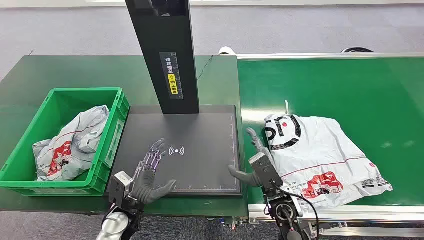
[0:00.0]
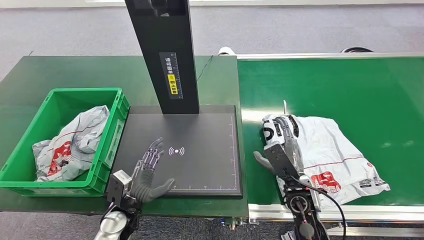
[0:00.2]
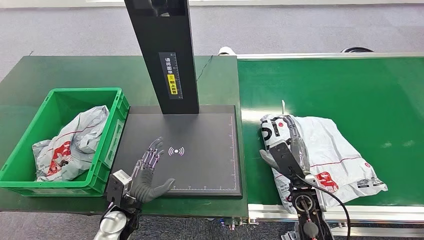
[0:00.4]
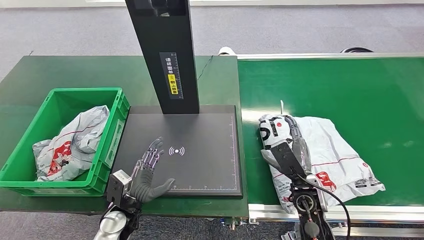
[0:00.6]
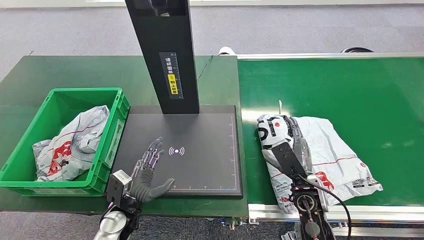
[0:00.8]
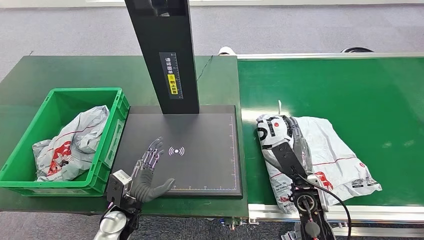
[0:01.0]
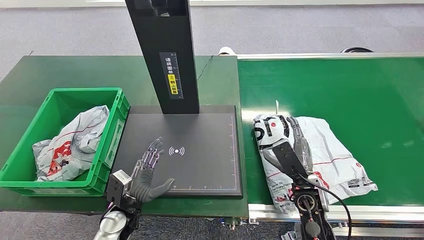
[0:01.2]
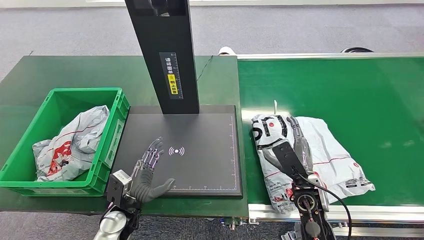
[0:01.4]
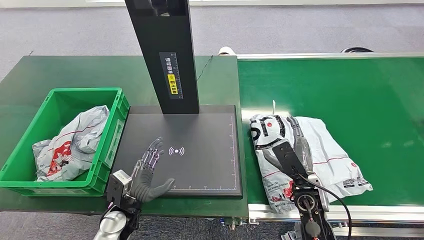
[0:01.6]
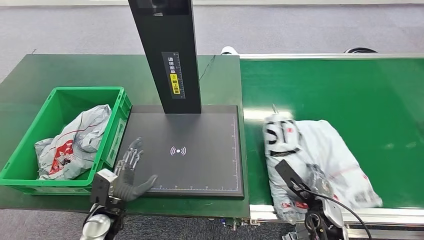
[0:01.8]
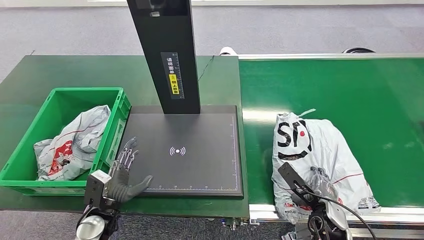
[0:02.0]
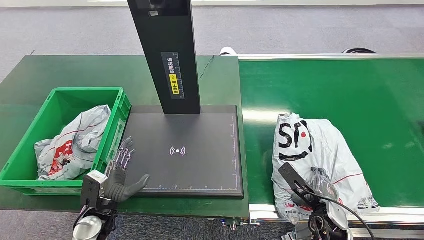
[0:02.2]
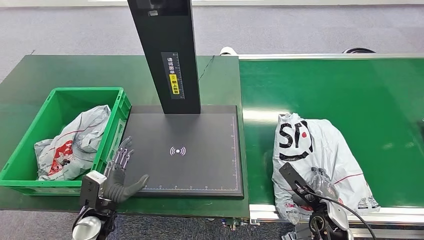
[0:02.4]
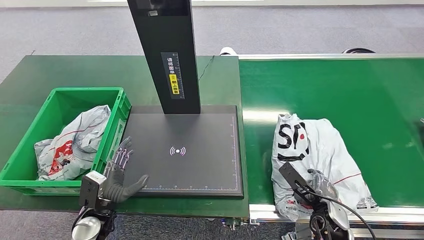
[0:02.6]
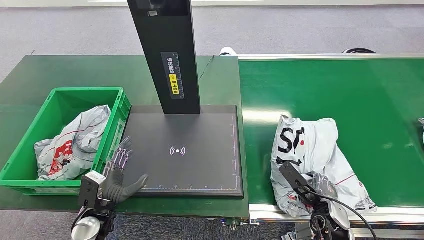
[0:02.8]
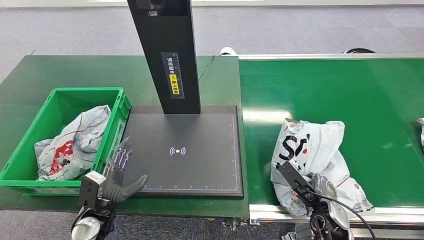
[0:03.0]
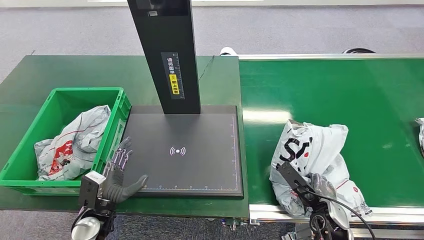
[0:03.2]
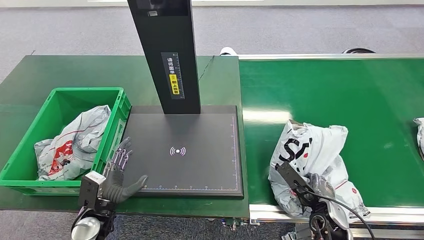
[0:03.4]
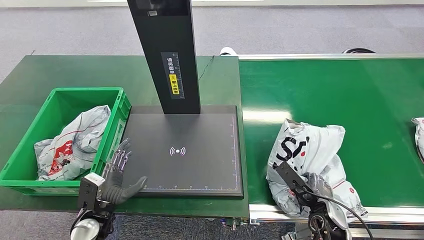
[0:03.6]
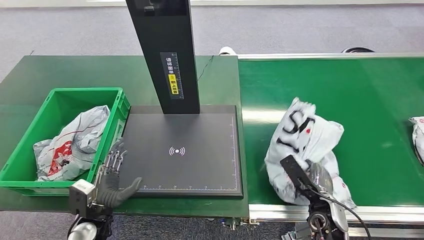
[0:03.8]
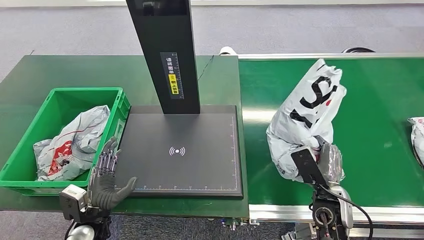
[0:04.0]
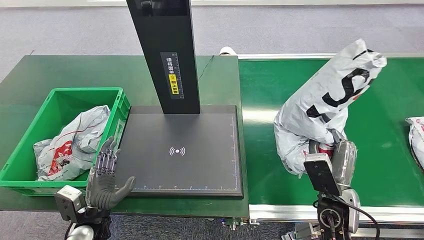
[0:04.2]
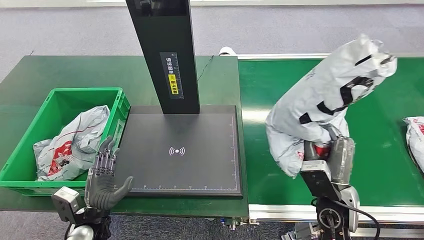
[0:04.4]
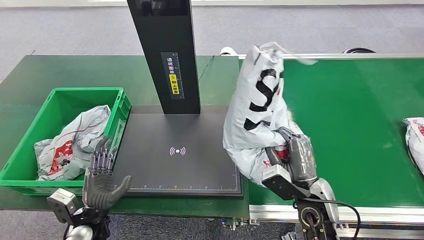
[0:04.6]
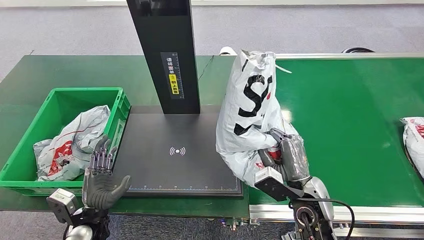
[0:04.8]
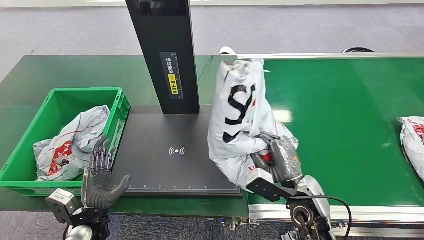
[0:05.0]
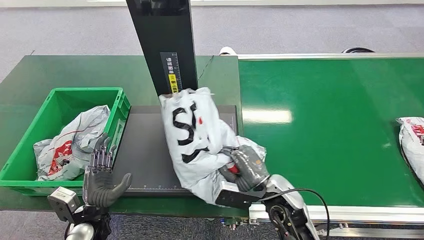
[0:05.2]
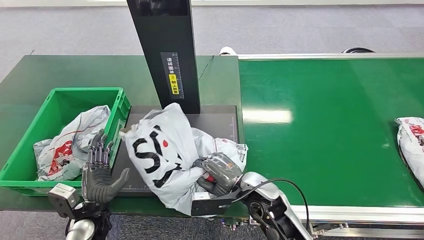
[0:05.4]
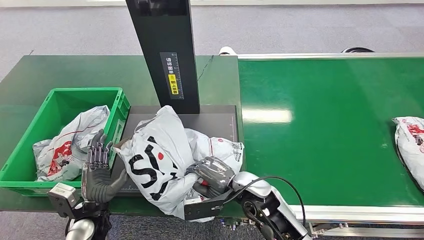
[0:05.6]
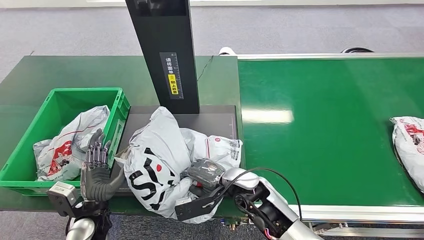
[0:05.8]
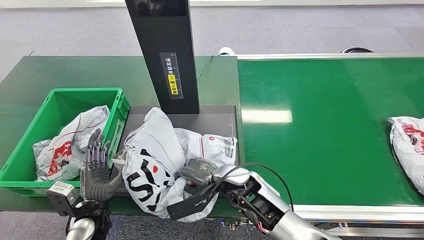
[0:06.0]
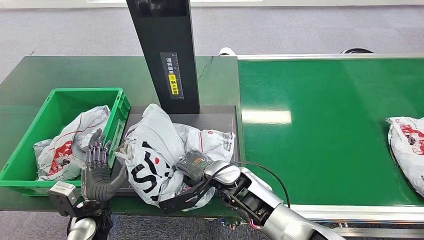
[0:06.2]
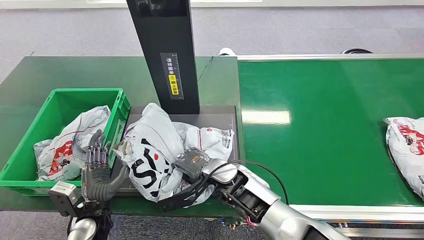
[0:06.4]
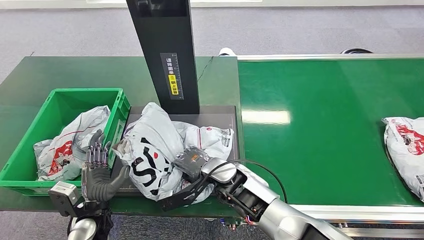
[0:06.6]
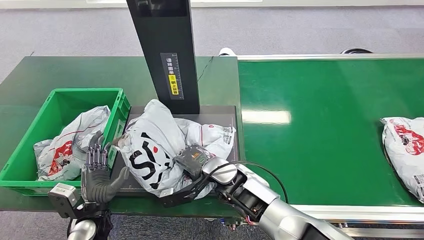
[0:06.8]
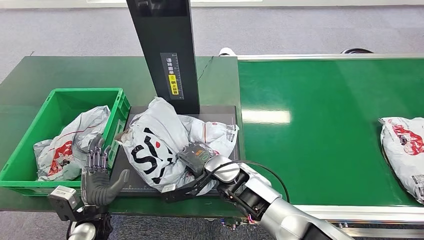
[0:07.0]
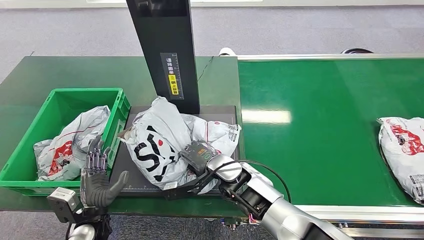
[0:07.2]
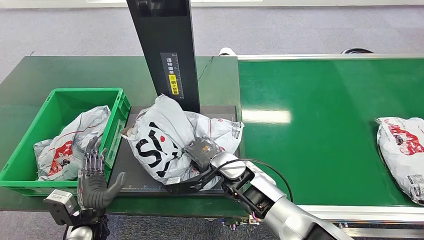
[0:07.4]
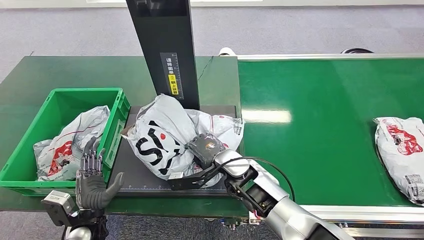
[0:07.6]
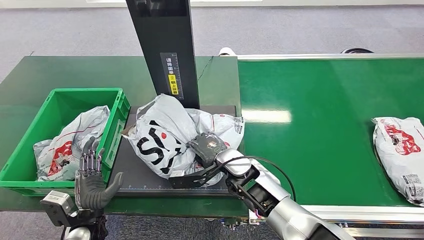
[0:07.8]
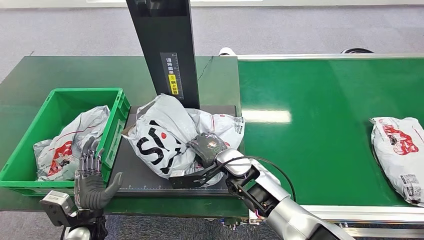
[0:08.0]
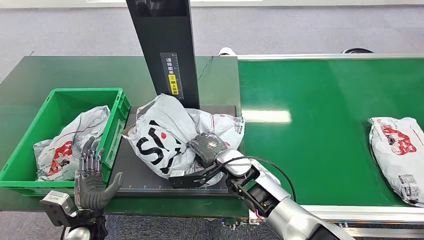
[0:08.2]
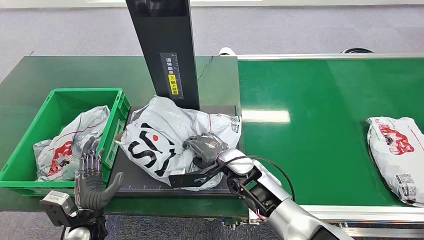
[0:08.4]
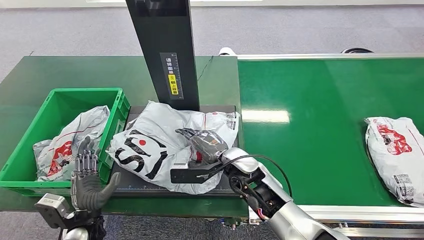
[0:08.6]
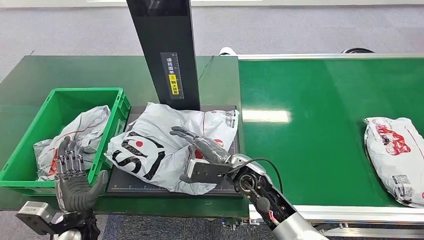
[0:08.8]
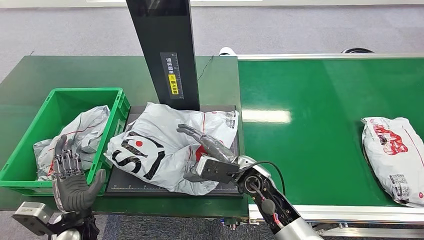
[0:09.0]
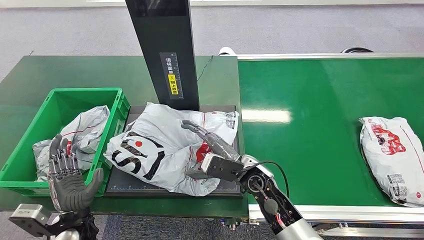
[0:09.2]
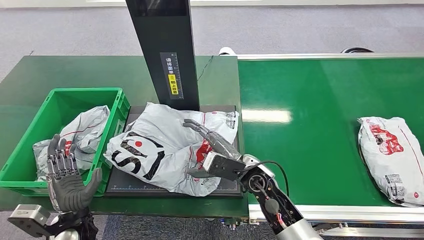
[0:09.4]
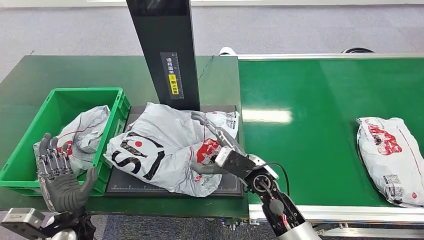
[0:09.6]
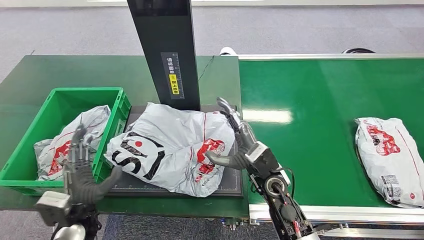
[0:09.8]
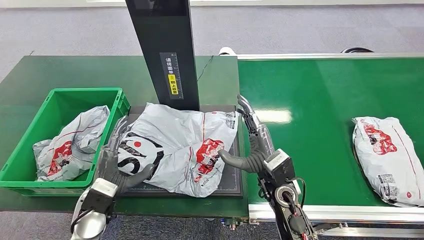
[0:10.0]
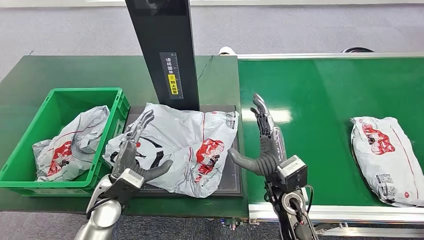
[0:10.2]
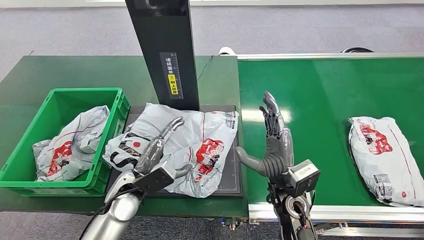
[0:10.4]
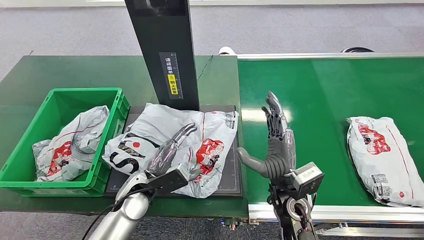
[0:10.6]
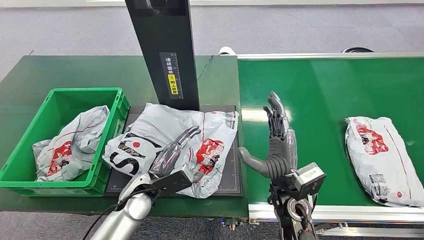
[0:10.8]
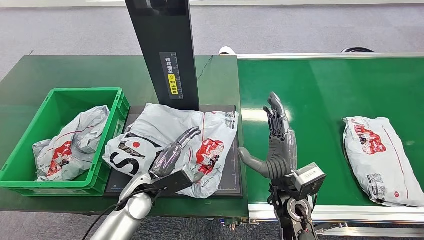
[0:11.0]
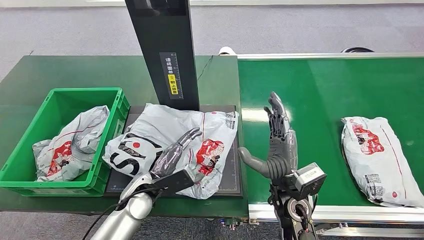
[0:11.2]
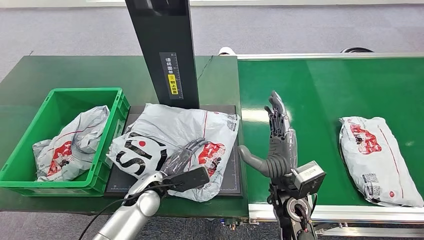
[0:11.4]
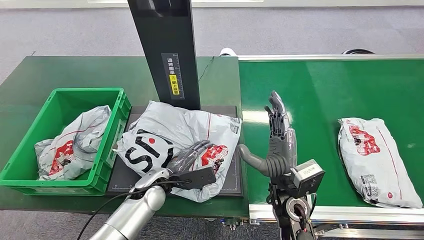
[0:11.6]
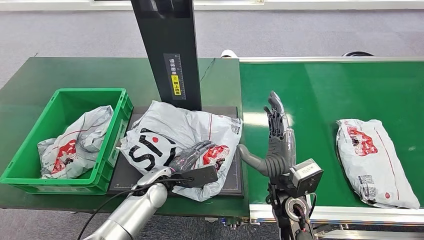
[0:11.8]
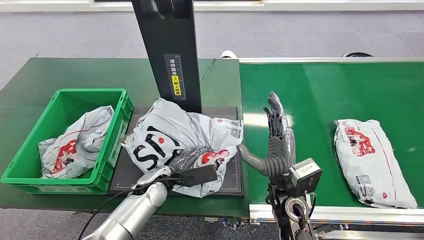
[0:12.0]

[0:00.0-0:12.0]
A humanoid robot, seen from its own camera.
Step, 0:00.0 to 0:03.8: Pick up the package from the conveyor belt.
Step, 0:04.0 to 0:09.4: Place the package onto the inbound machine.
0:01.6 to 0:03.0: The right hand moves to the right, roughly 5 cm. Meanwhile the left hand is displaced to the left by roughly 5 cm.

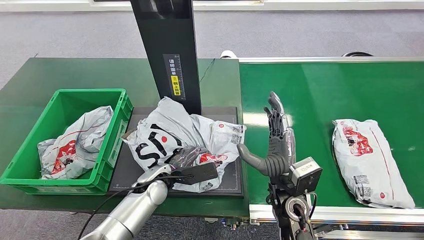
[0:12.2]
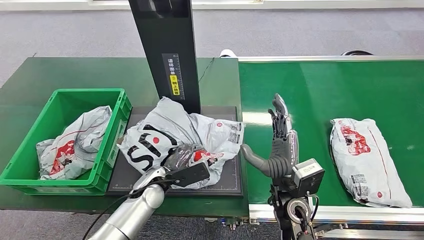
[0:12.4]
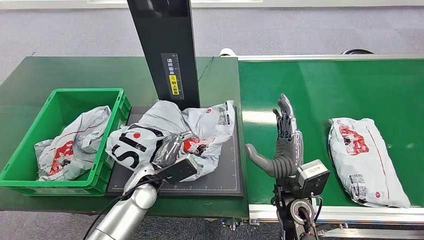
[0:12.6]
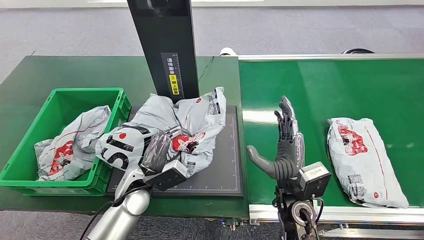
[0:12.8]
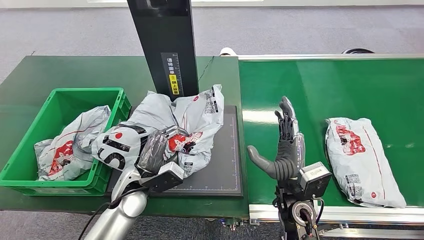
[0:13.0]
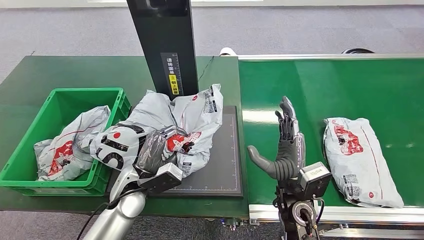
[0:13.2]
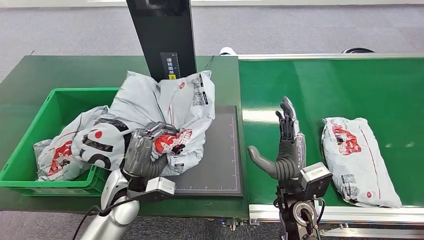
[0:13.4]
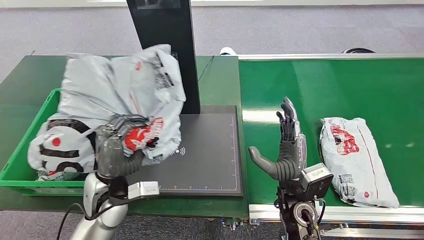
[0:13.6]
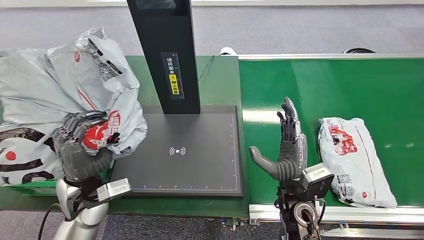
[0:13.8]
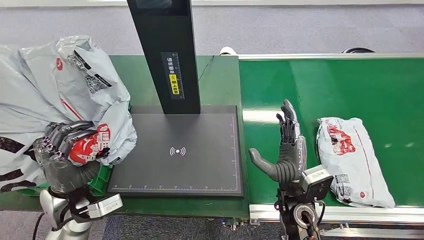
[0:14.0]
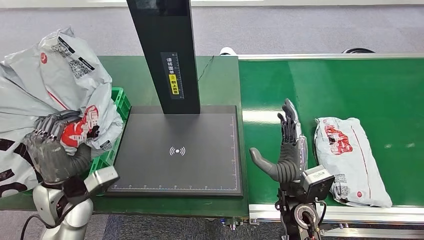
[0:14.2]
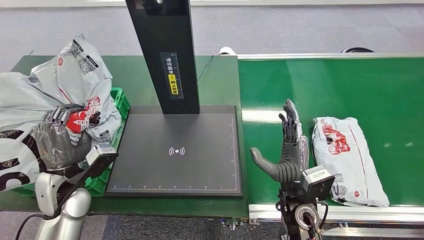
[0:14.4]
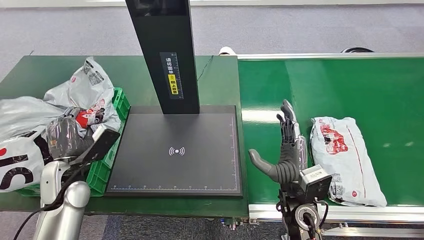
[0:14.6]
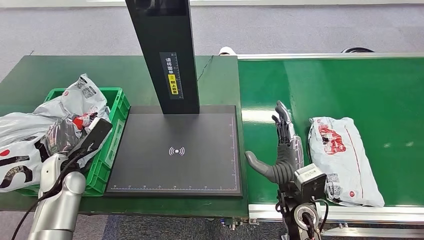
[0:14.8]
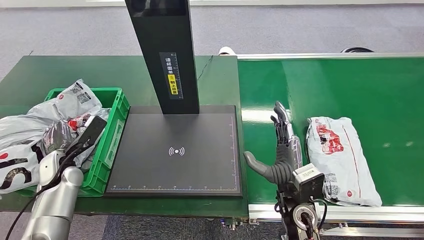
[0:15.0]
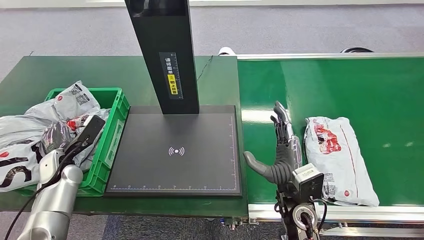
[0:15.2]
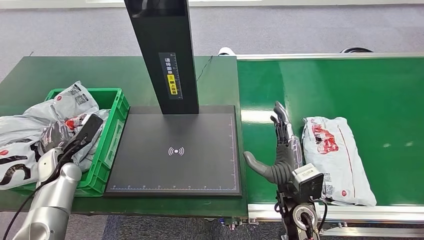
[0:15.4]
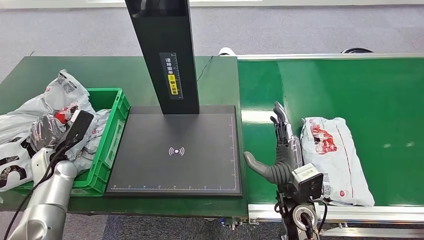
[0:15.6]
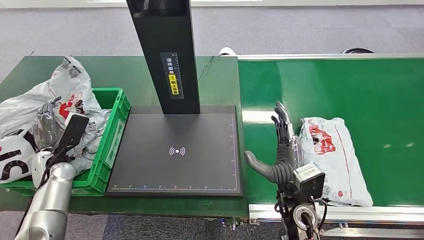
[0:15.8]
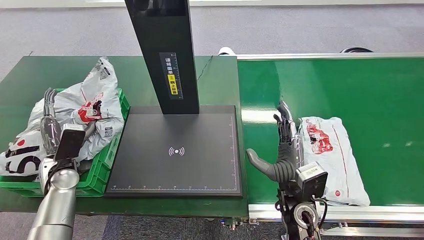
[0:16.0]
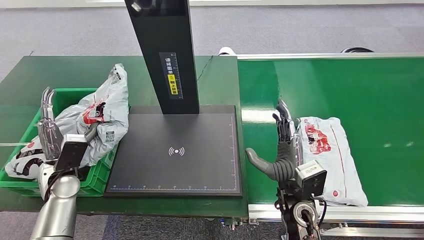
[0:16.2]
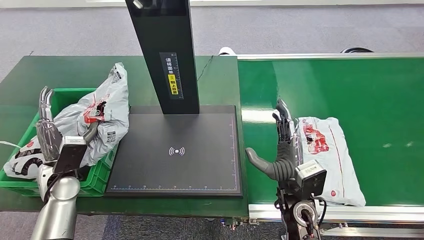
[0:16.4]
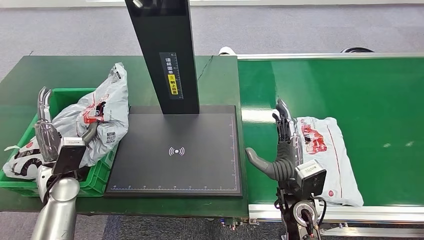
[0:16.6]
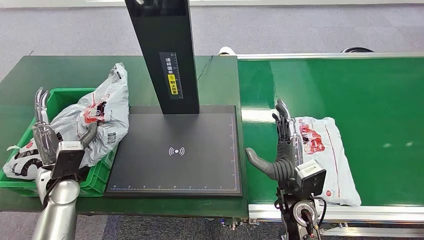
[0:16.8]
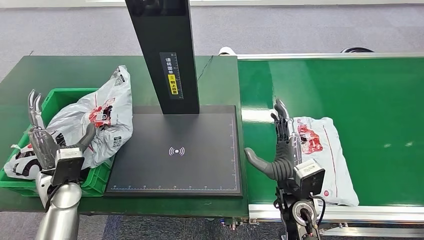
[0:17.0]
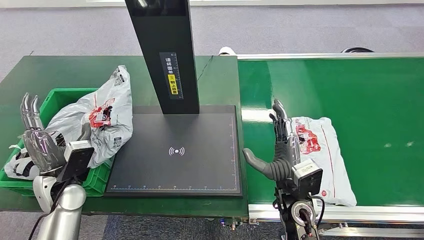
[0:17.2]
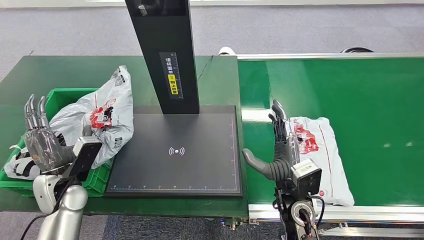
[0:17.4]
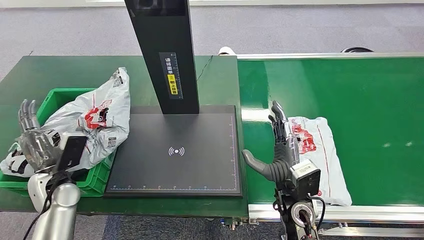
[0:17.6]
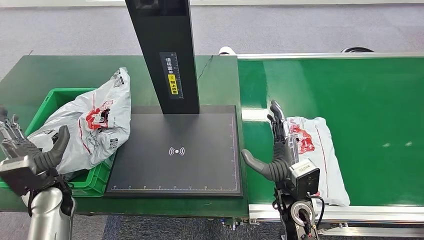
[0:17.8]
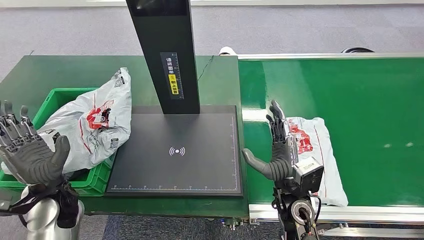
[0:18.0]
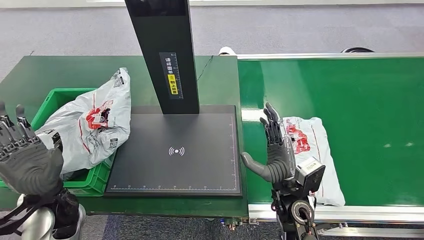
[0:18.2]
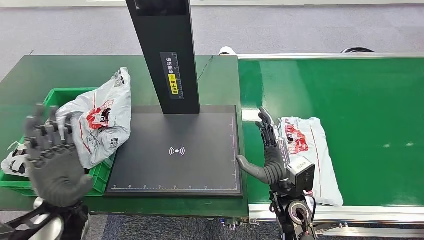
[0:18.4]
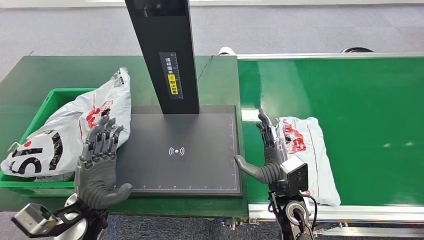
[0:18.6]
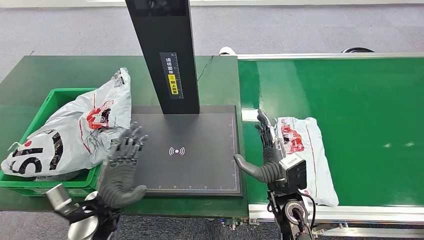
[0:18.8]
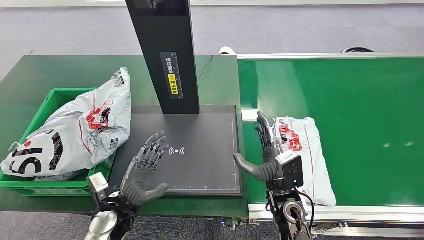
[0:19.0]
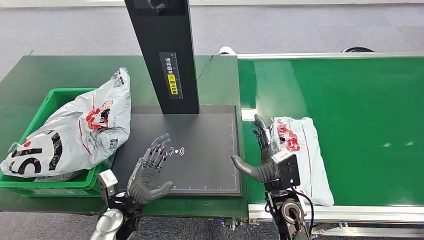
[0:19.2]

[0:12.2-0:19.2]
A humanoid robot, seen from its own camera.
0:15.0 to 0:16.4: The left hand moves roughly 5 cm.
0:17.8 to 0:19.2: The left hand shifts roughly 20 cm to the right and downward.
